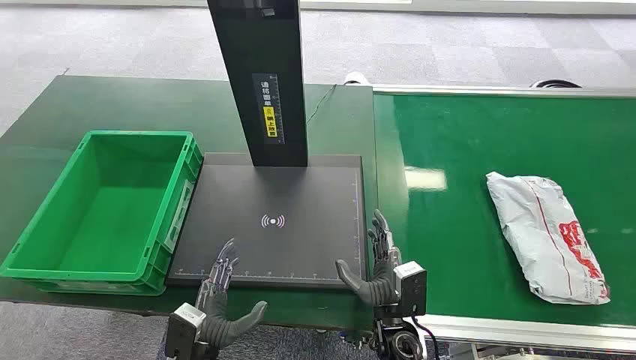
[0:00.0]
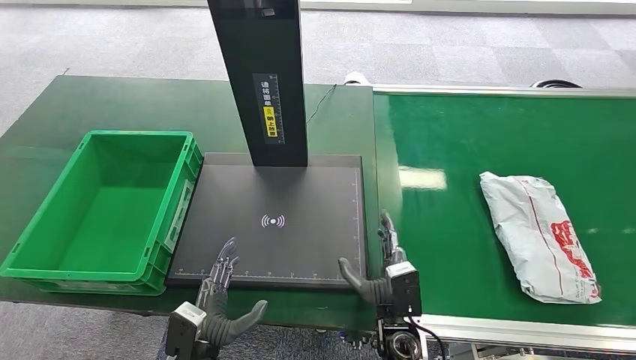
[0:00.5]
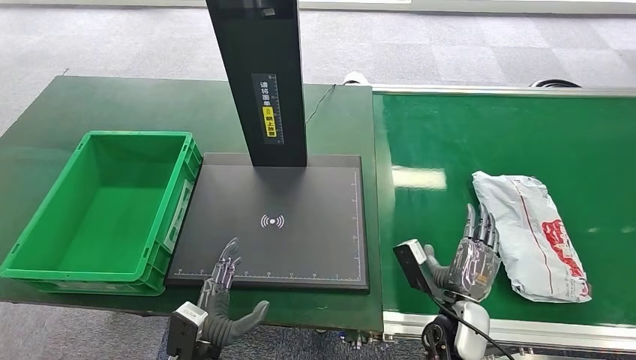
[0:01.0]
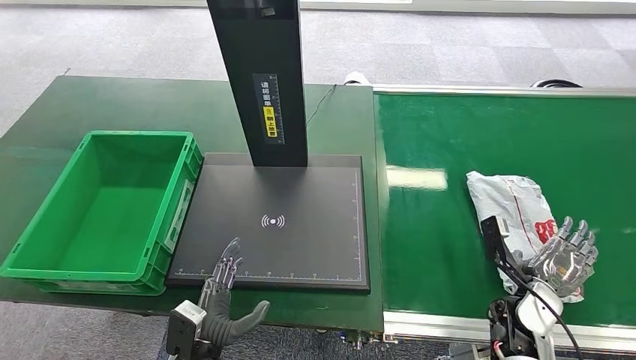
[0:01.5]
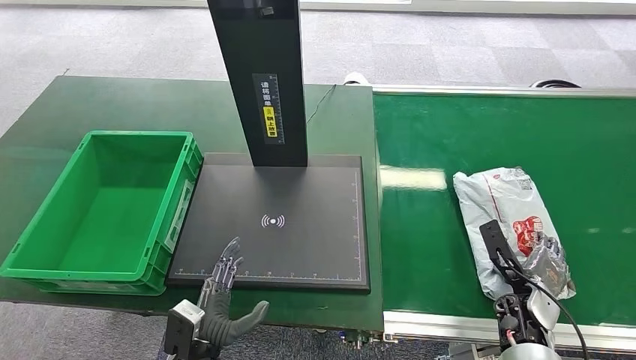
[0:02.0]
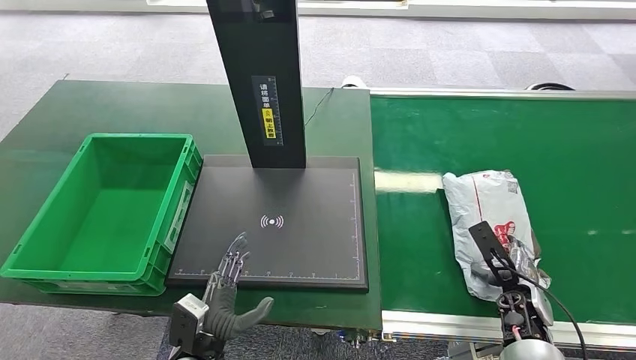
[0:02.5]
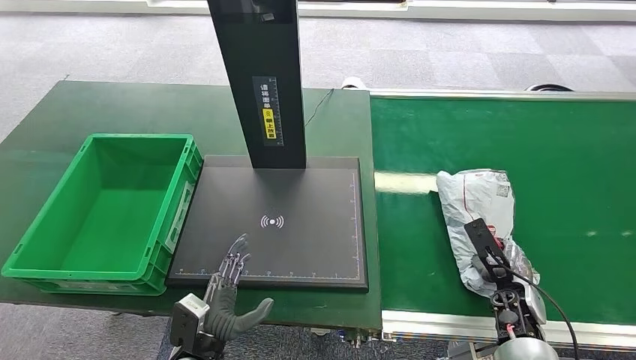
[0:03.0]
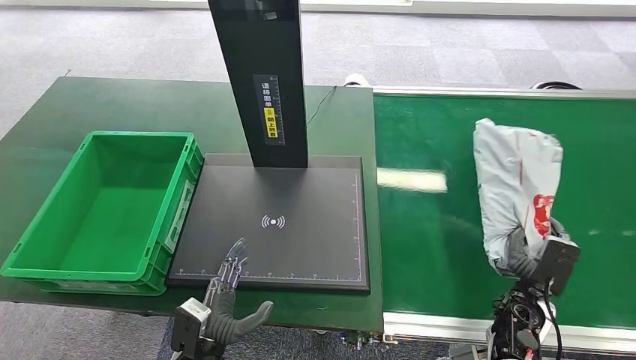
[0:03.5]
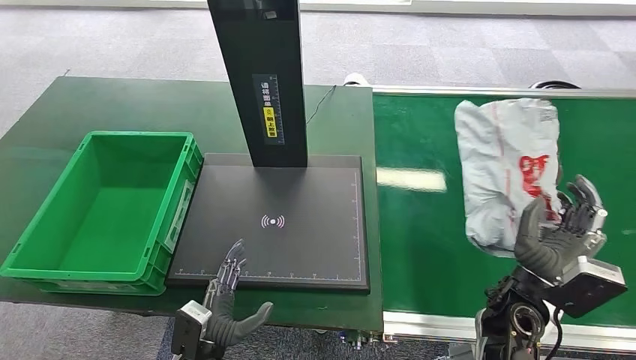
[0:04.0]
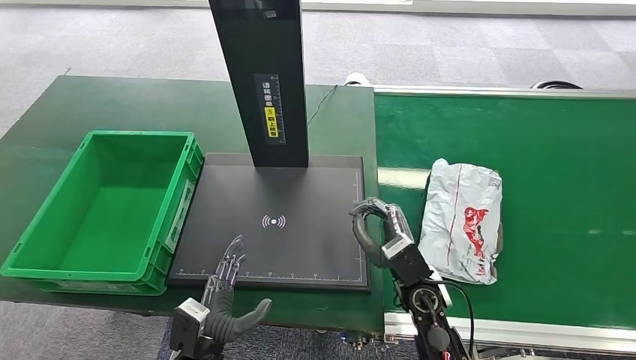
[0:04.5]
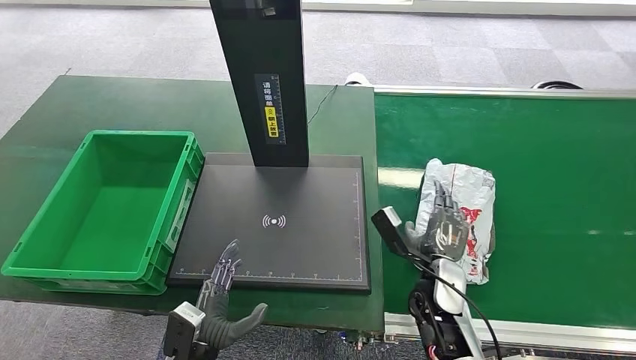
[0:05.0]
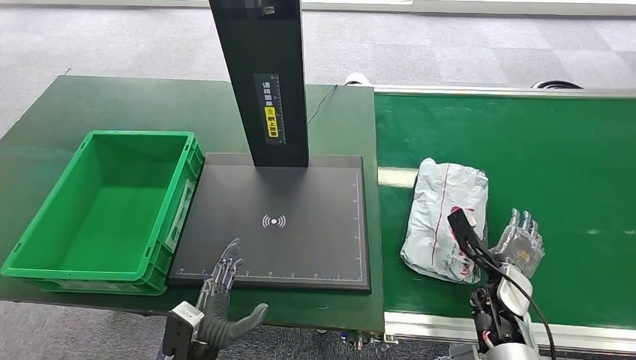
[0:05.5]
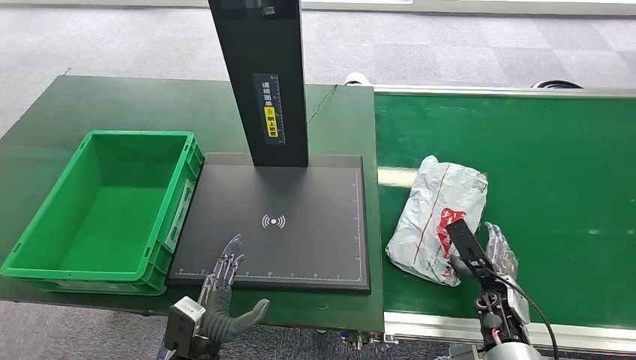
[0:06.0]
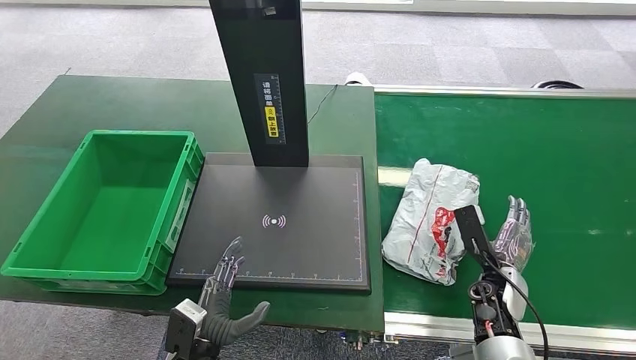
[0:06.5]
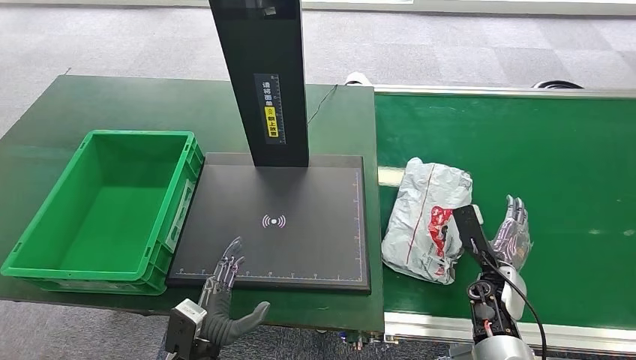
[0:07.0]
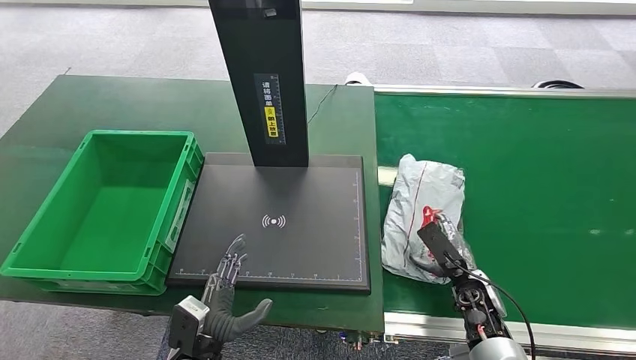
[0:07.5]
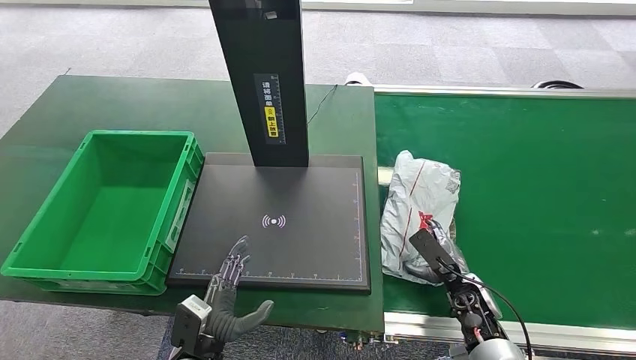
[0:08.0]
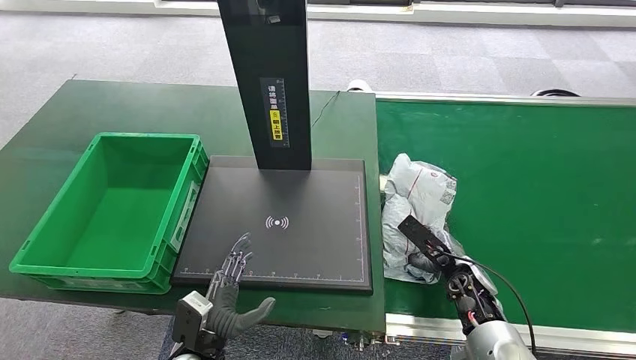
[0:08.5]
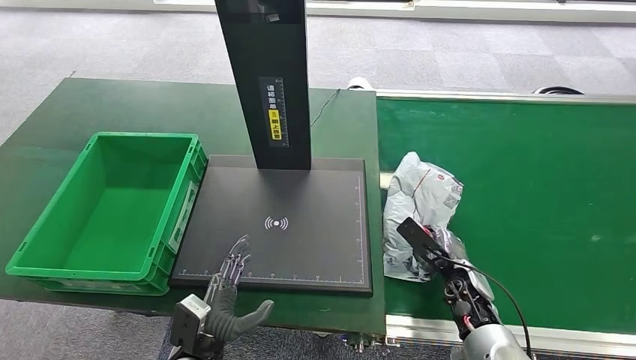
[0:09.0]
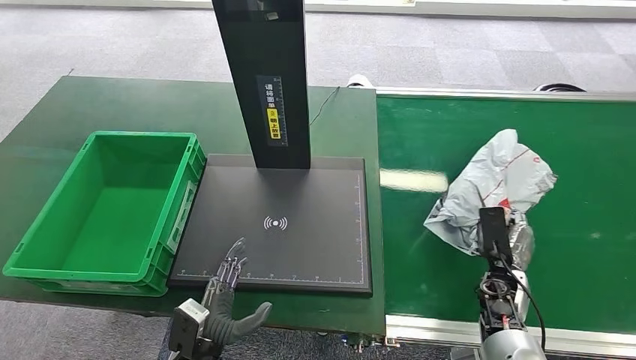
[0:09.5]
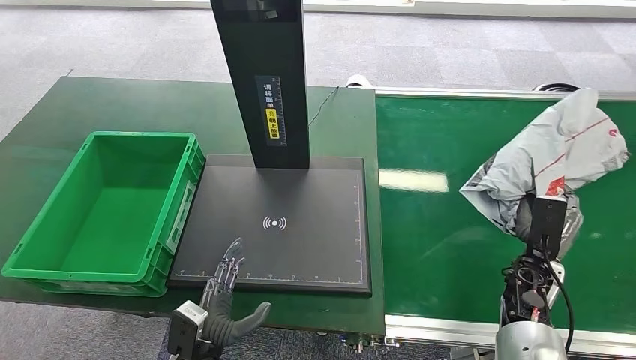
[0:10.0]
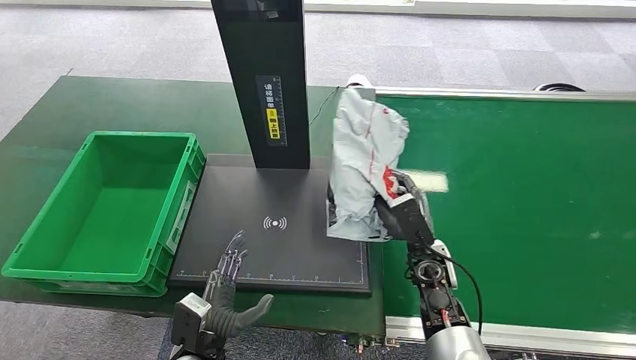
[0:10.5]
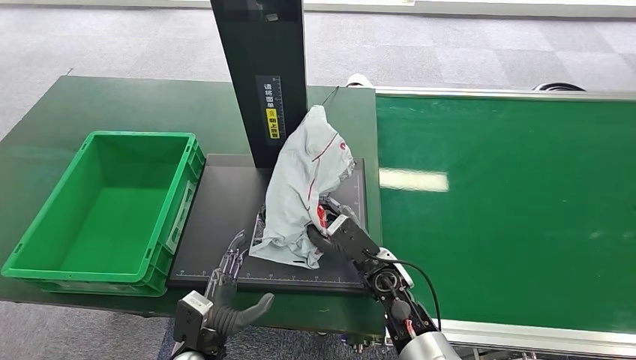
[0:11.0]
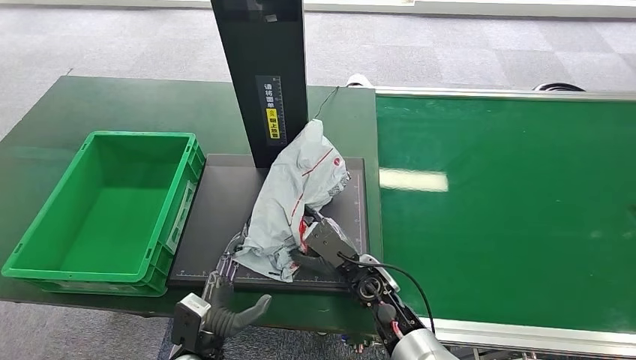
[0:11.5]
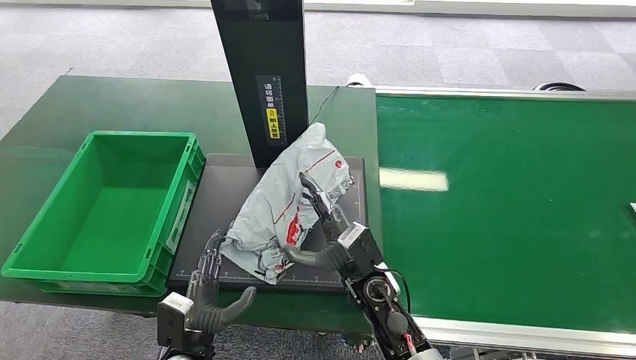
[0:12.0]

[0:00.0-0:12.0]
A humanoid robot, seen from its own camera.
Step, 0:00.0 to 0:09.5: Pick up the package from the conveyor belt.
0:02.0 to 0:04.0: The right hand shifts roughly 15 cm upward and to the left.
0:04.0 to 0:06.0: The right hand heads downward, covering about 10 cm, and moves roughly 10 cm to the left and comes back.

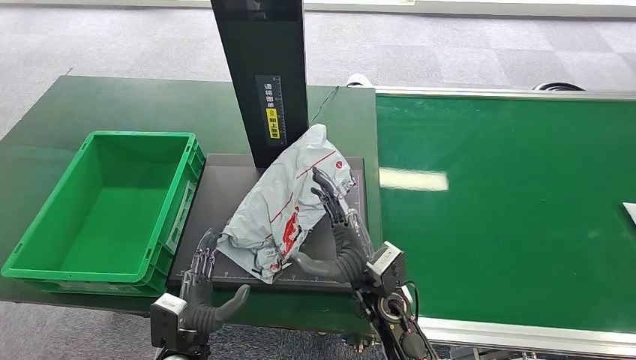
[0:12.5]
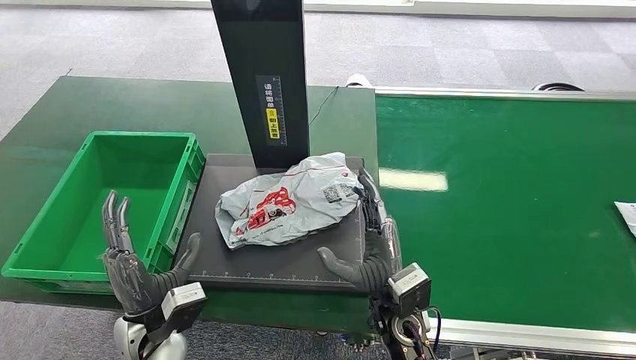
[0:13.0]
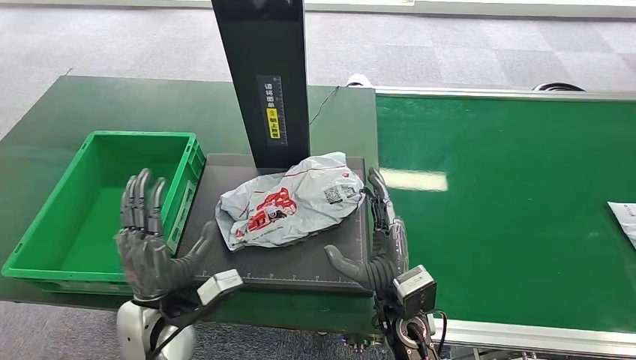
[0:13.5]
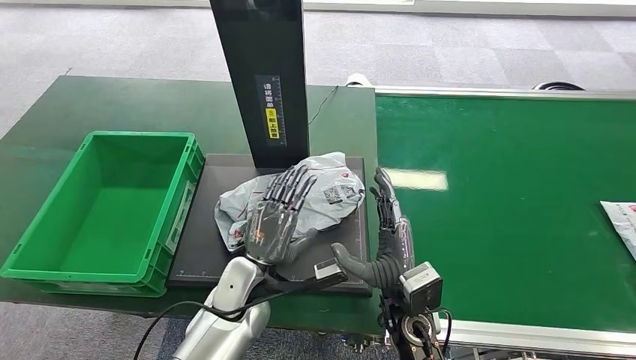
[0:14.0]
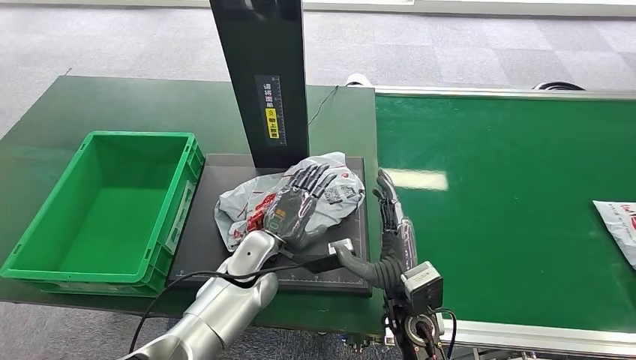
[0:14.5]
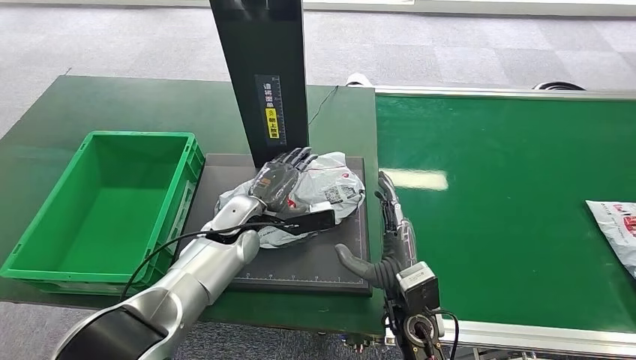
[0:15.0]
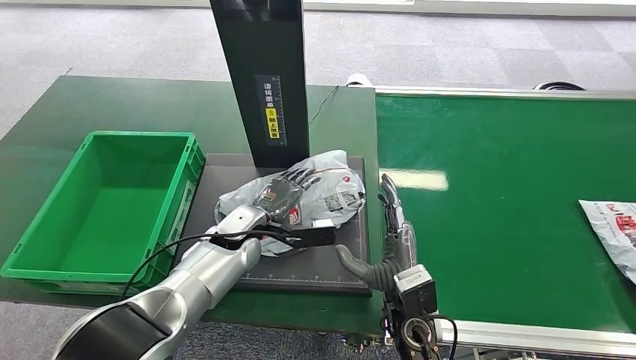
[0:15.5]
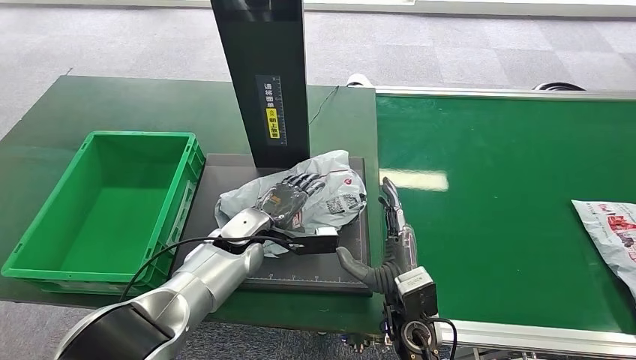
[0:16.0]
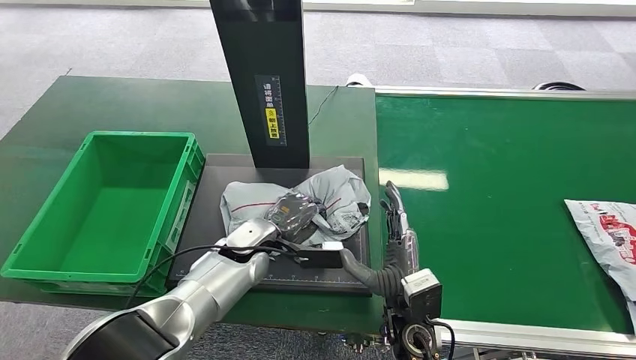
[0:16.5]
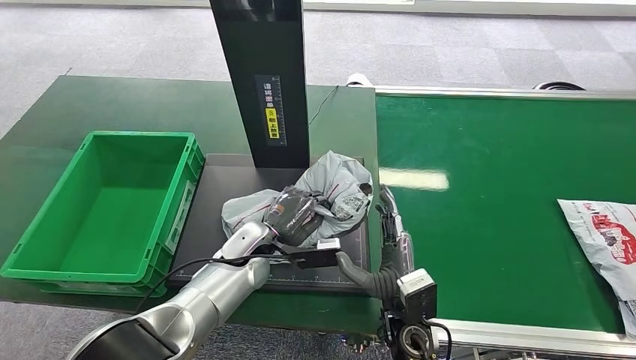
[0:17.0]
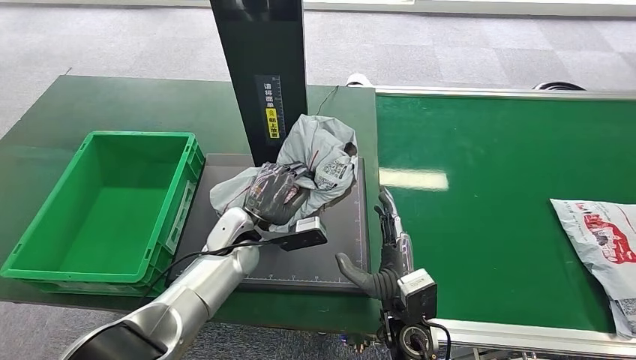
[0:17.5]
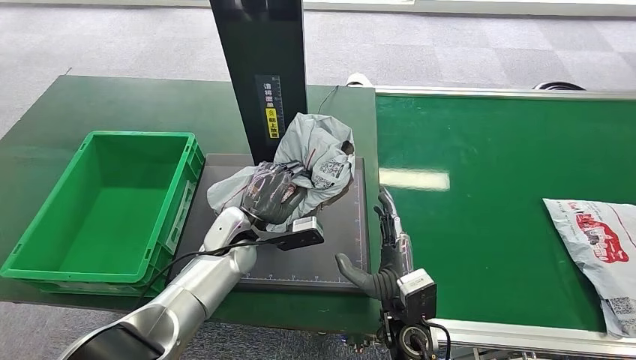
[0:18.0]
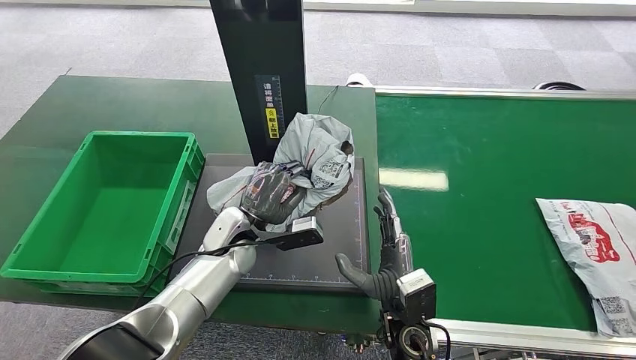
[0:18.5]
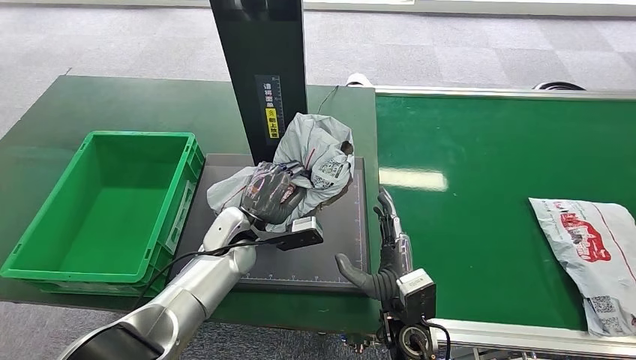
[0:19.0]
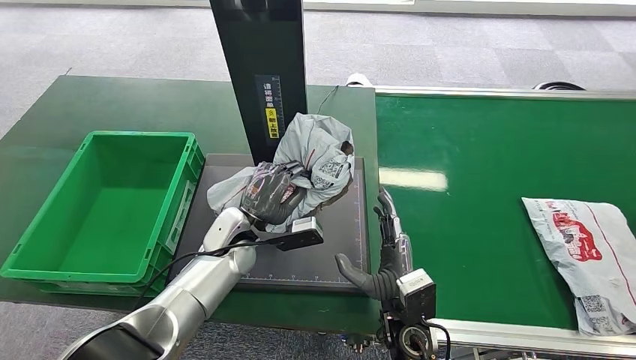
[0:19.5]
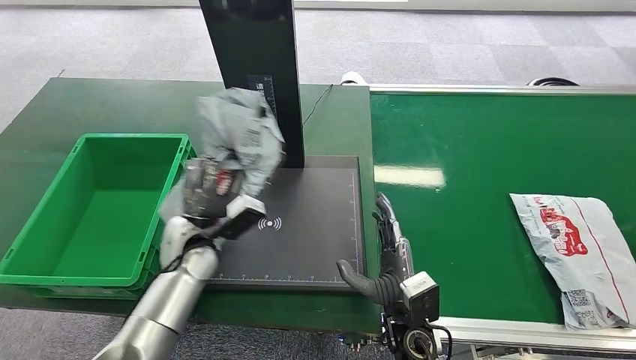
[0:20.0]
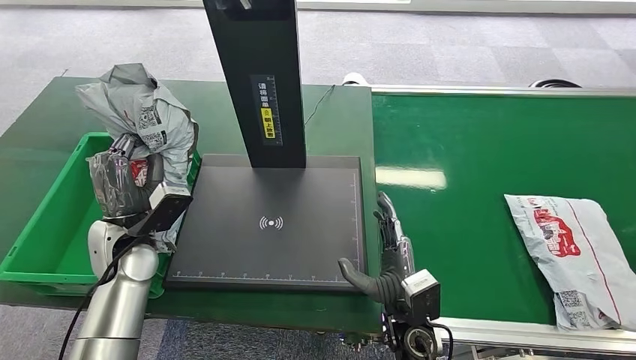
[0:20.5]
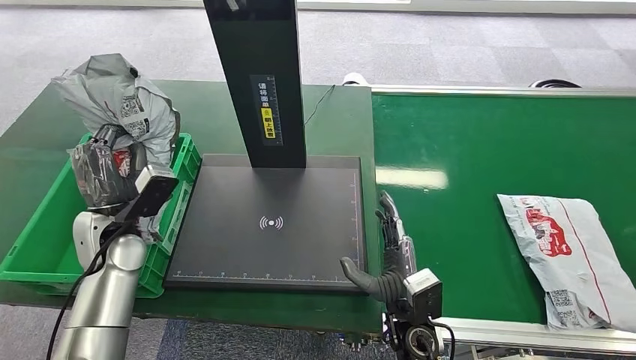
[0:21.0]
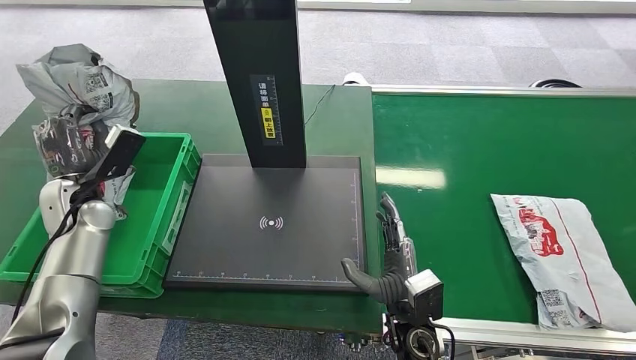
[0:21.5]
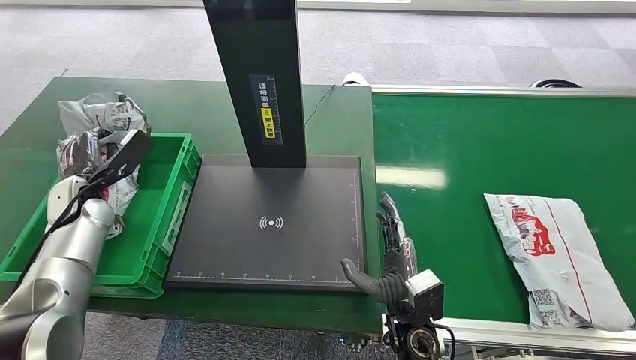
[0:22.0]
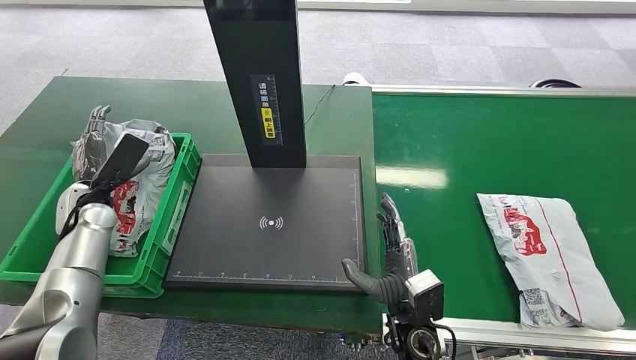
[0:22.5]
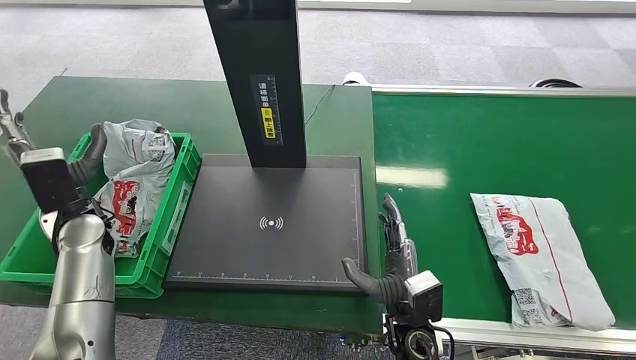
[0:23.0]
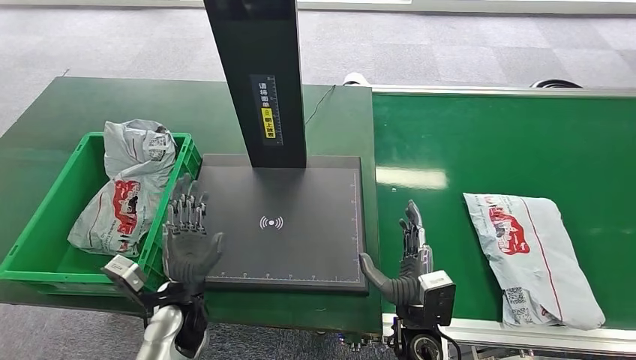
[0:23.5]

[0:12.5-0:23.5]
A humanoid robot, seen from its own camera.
Step, 0:13.0 to 0:17.5: Pick up the package from the inbound machine.
0:12.5 to 0:14.5: The left hand travels forward, to the right and upward by about 20 cm.
0:14.5 to 0:16.0: The left hand is displaced forward by approximately 5 cm.
